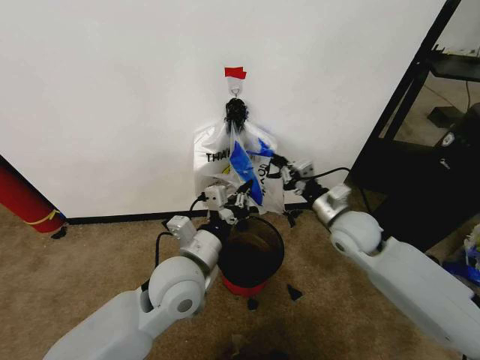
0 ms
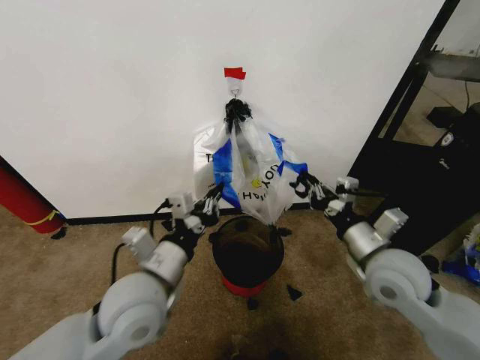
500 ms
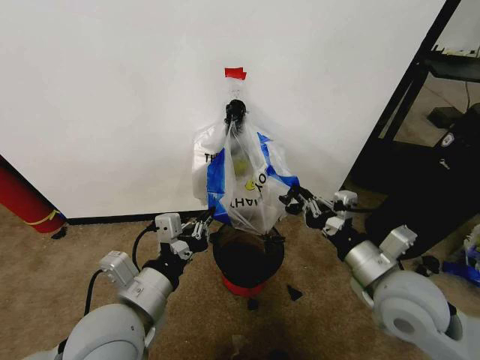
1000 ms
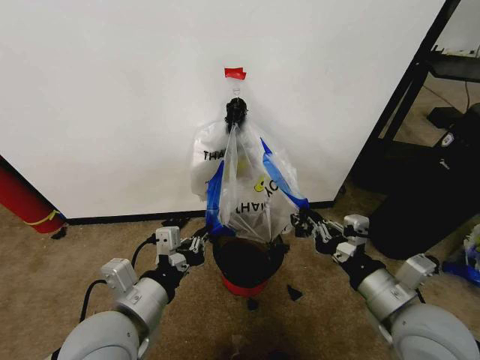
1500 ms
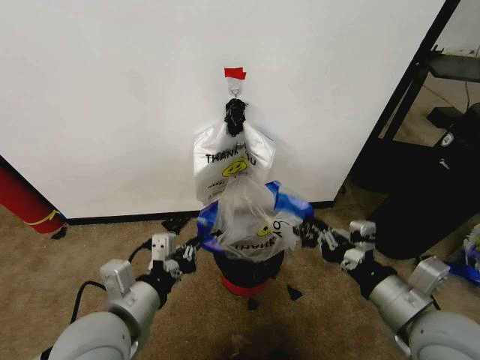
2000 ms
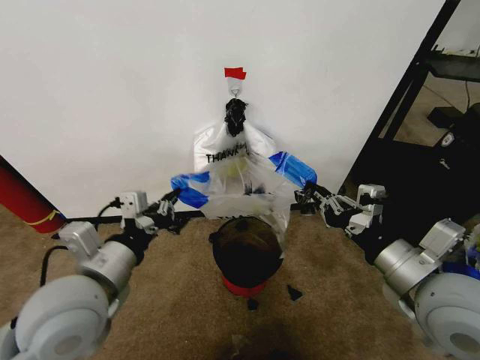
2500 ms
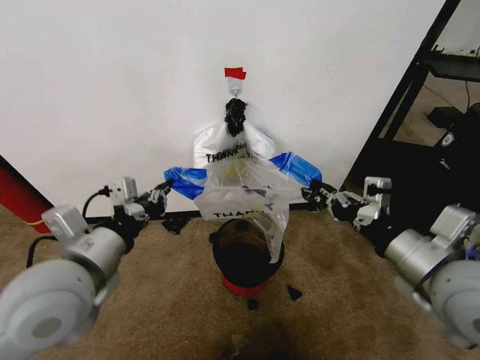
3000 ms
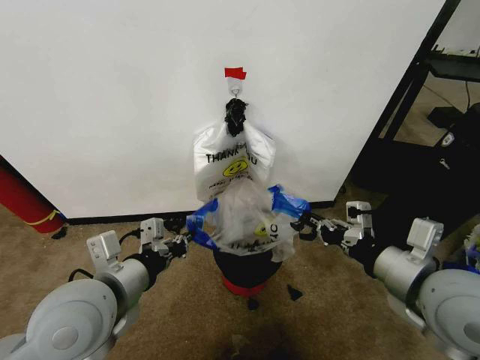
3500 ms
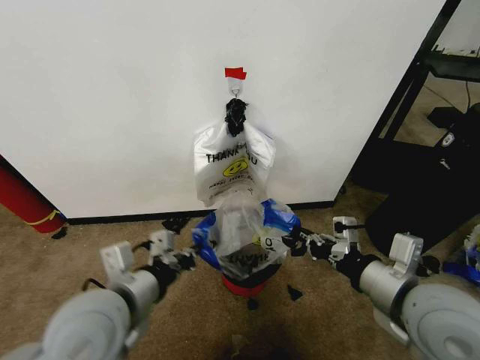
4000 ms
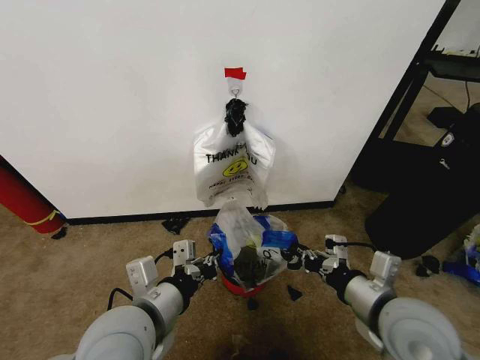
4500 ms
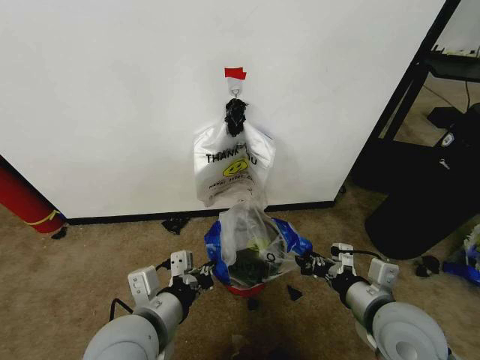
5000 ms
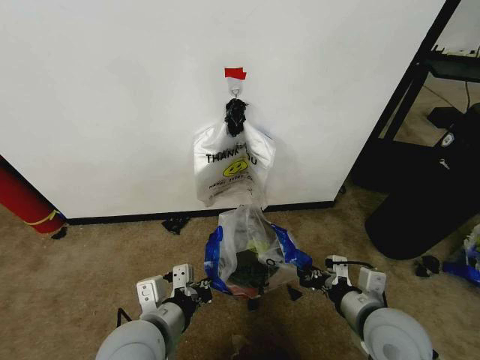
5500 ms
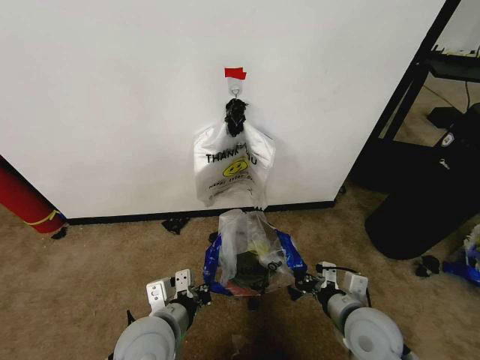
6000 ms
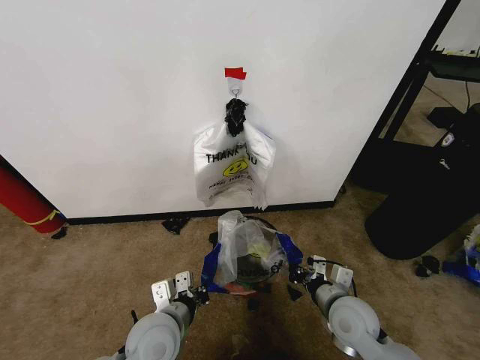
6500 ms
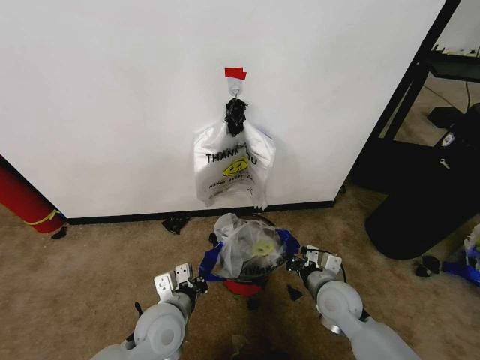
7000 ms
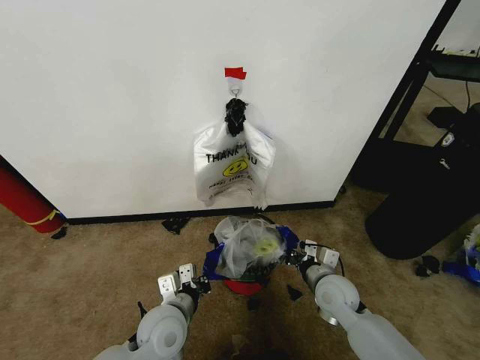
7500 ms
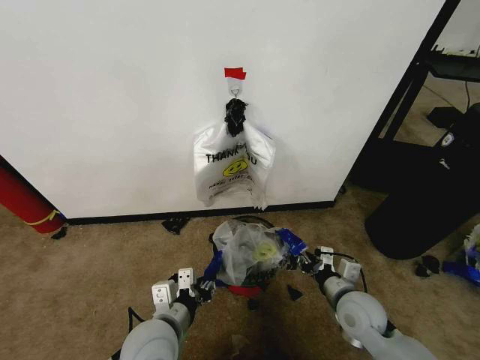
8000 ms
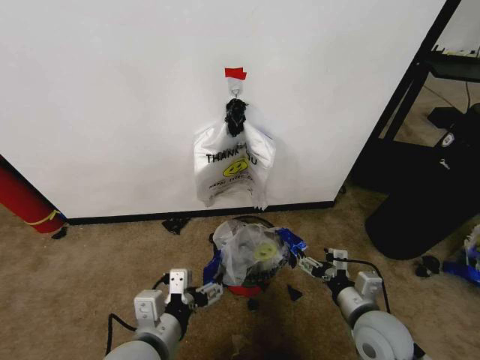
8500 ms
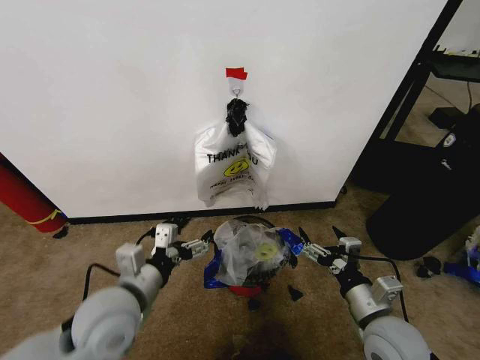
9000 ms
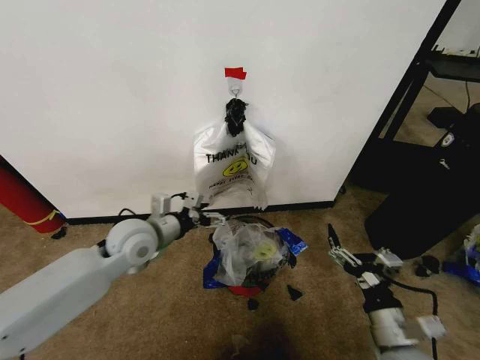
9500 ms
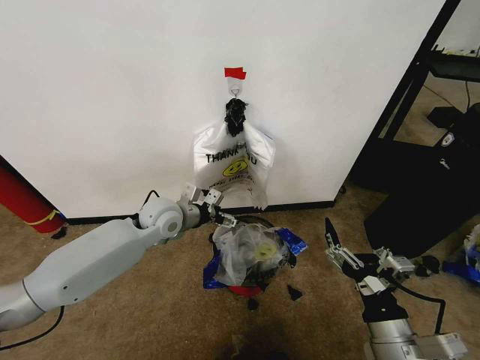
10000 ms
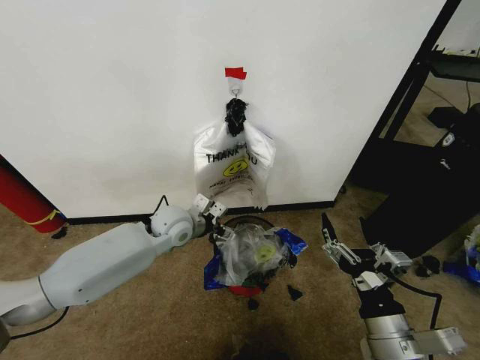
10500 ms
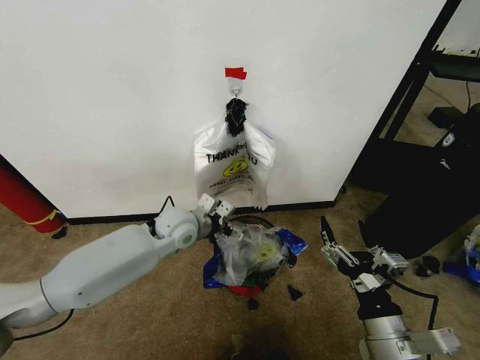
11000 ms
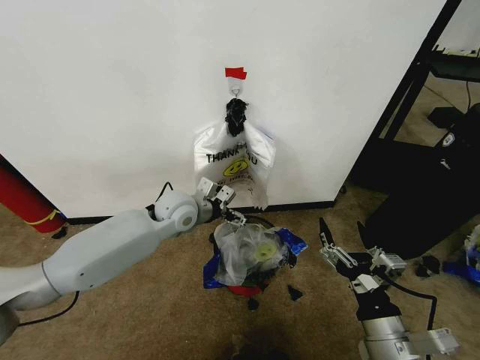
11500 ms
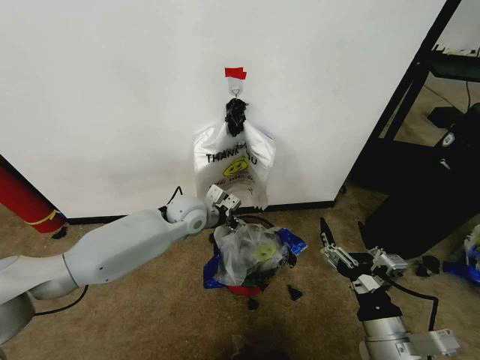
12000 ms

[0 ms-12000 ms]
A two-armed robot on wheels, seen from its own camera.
Task of the whole recording: Pick up the garbage bag from the wall and place it over the trash bin.
0 ms to 2000 ms: The right gripper shifts some 25 cm backward. Meanwhile the left gripper travels backward and to the left by some 15 cm.
4000 ms to 6000 ms: The right gripper moves downward, approximately 15 cm. The left gripper travels downward and to the right by some 15 cm.
6000 ms to 8000 ms: The right gripper opens, while the left gripper opens.
8000 ms to 10000 ms: The left gripper heads forward, covering about 25 cm, and opens its fingers. The right gripper goes approximately 15 cm backward and upward, and opens.
10000 ms to 12000 ms: The left gripper goes about 5 cm to the right.

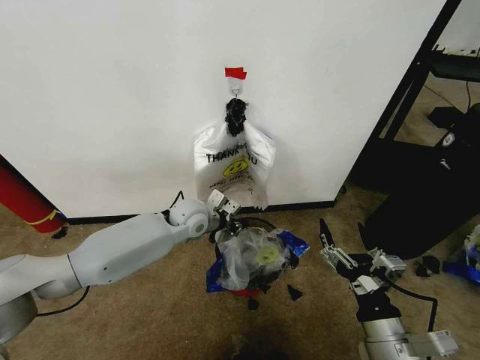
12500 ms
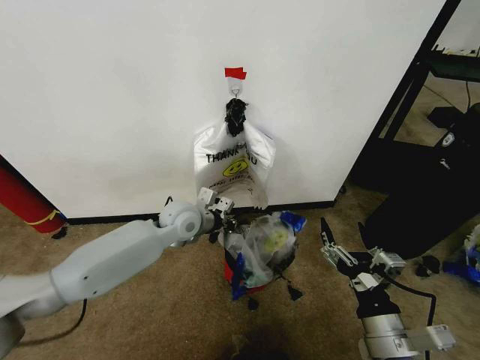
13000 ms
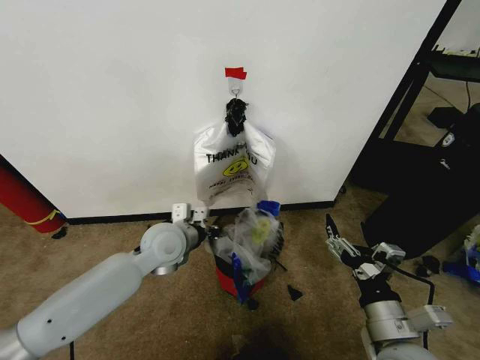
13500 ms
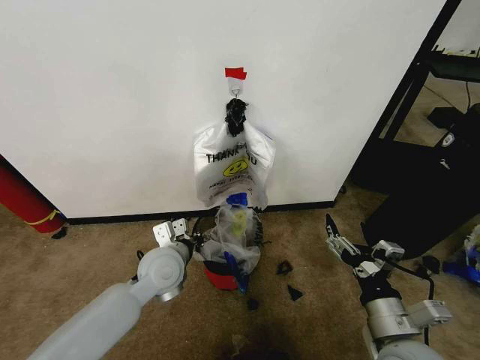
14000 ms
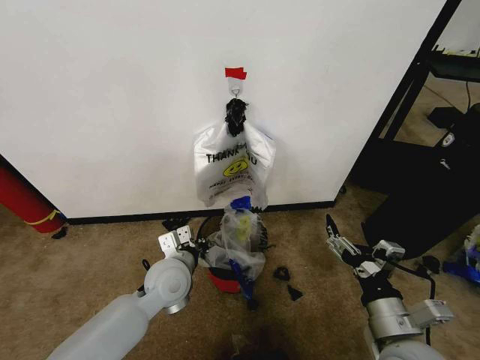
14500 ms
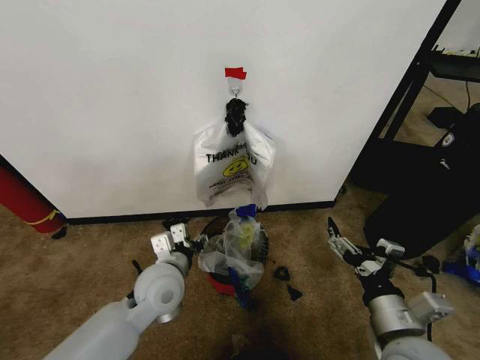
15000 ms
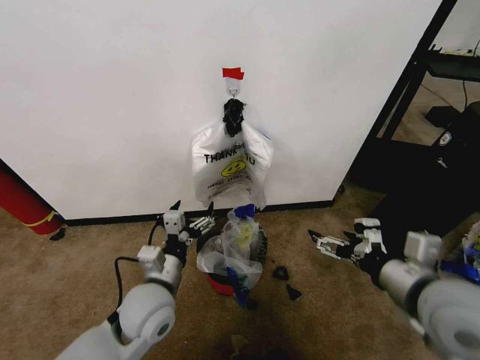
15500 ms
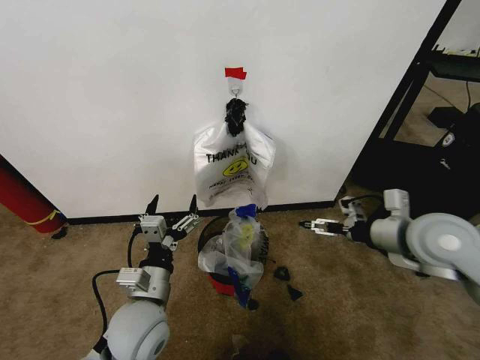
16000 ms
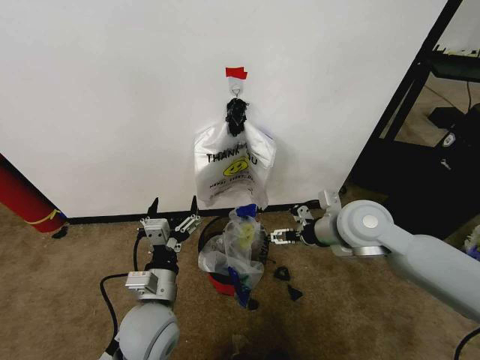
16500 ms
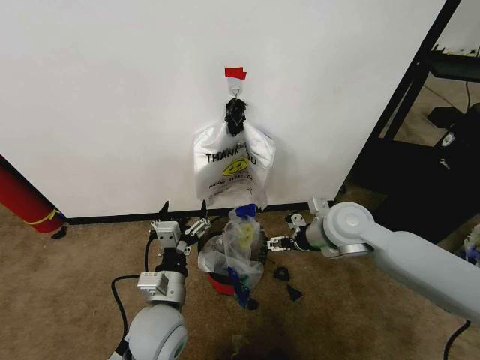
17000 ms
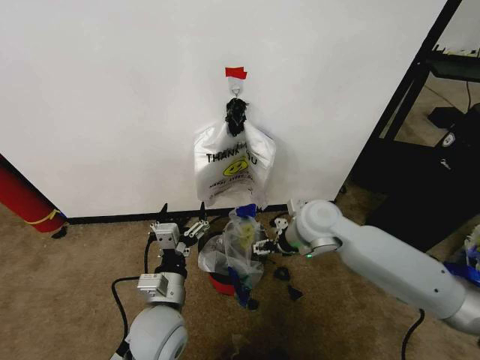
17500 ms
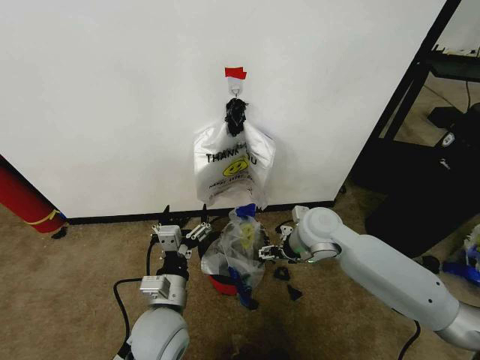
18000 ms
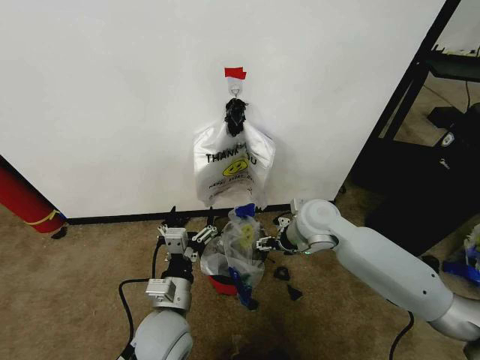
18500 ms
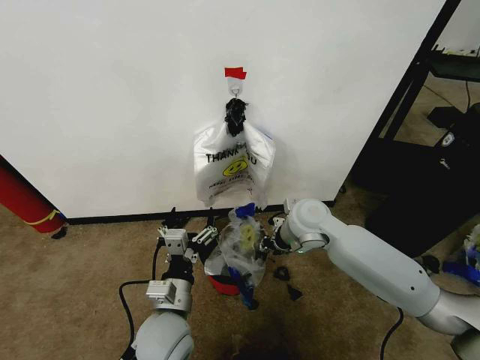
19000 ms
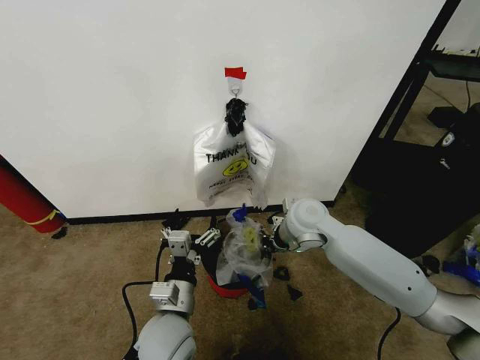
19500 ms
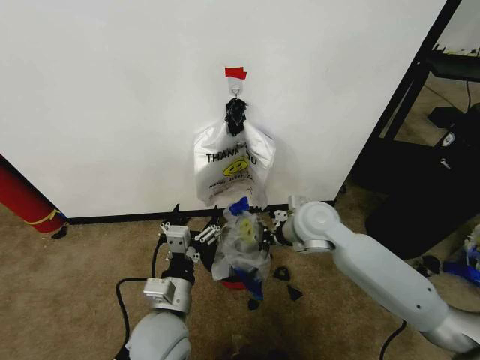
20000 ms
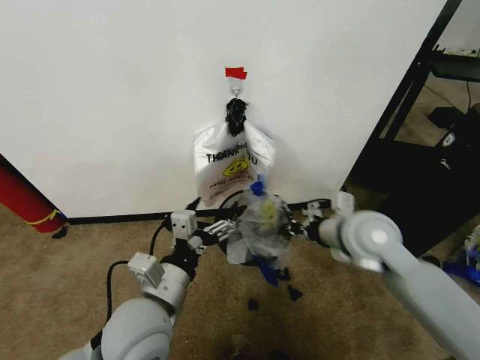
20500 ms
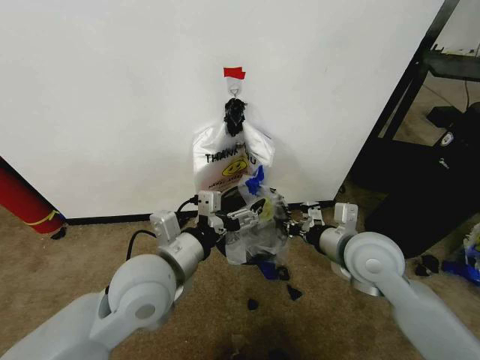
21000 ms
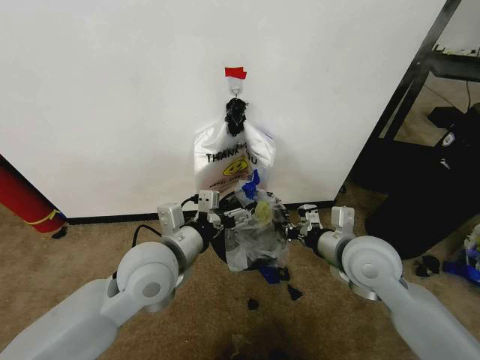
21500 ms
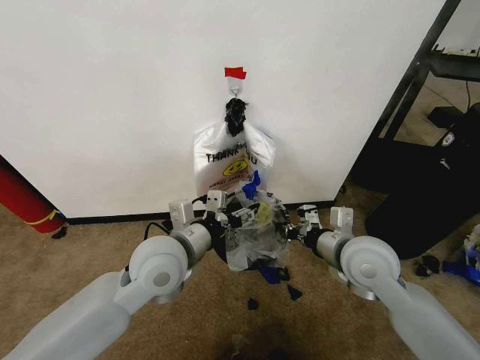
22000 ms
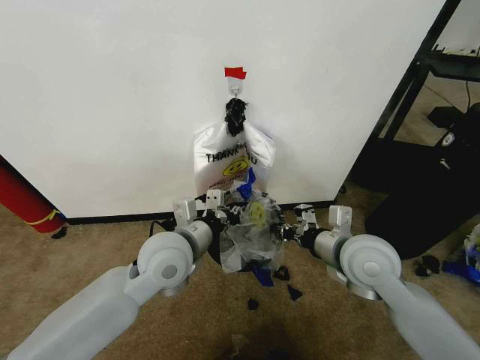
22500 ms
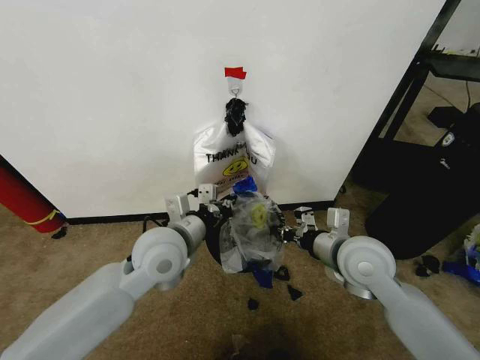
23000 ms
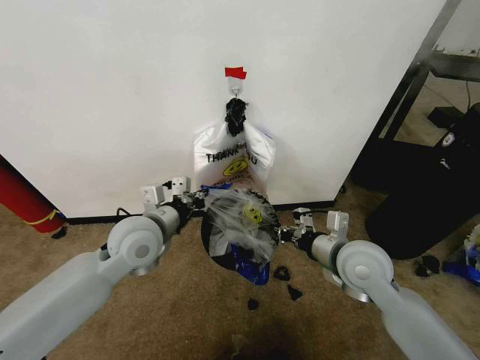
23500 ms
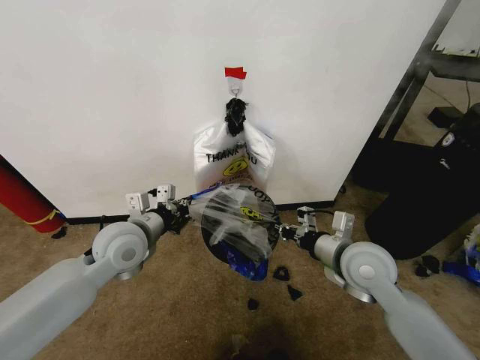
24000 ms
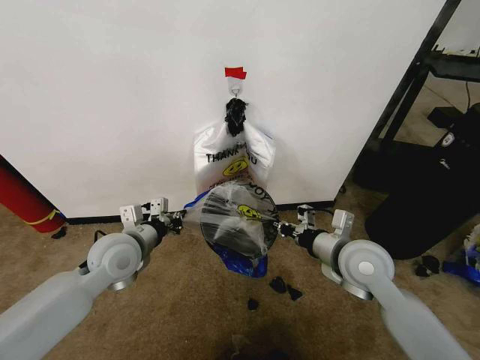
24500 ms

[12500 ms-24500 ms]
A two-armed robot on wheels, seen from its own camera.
Task of the whole recording: Pick up the garbage bag from the wall and place it over the trash bin.
12500 ms to 14500 ms: The left gripper goes roughly 15 cm backward.
14500 ms to 16500 ms: The left gripper moves backward, roughly 10 cm, and opens, while the right gripper goes some 25 cm forward and upward.
16500 ms to 18500 ms: The right gripper goes some 10 cm to the left, downward and forward.
18500 ms to 20500 ms: The right gripper goes some 10 cm backward and to the right, and closes its fingers, while the left gripper moves upward, approximately 10 cm.
20500 ms to 22500 ms: The left gripper goes about 10 cm forward, and closes.
22500 ms to 24500 ms: The left gripper goes approximately 10 cm to the left.

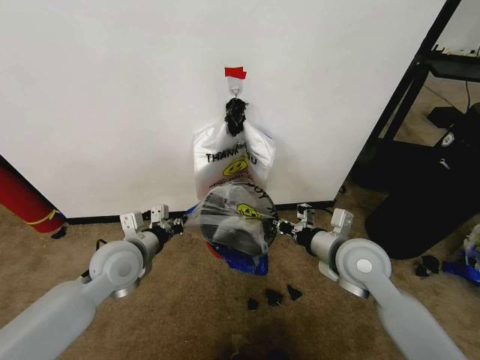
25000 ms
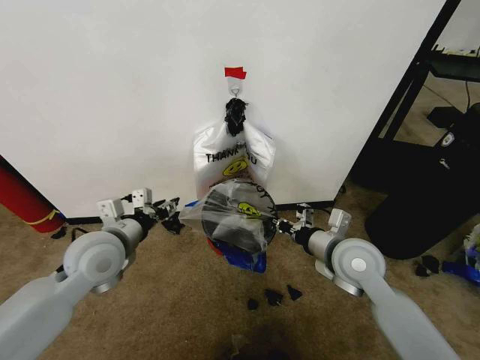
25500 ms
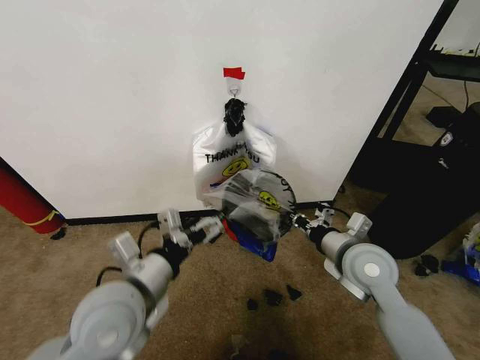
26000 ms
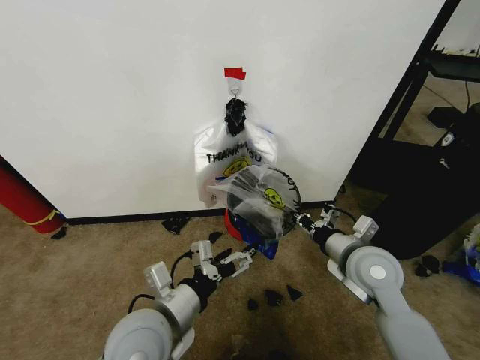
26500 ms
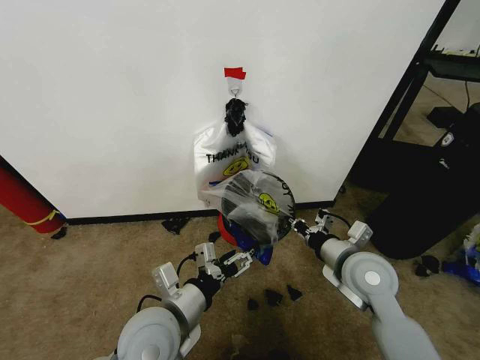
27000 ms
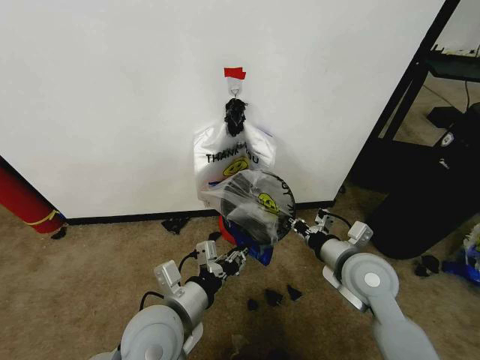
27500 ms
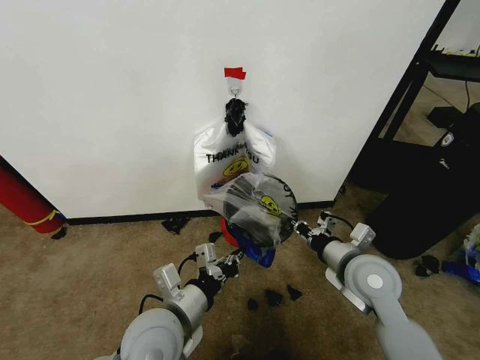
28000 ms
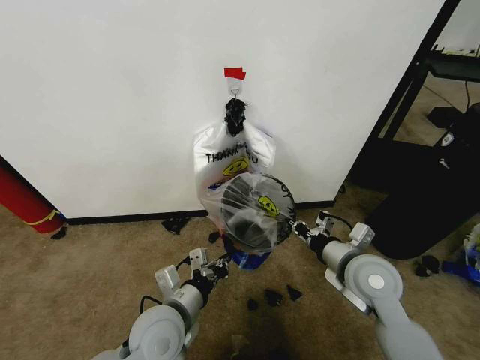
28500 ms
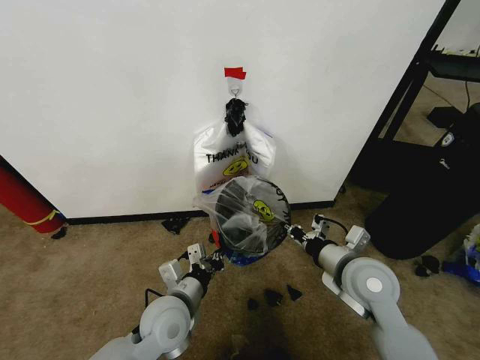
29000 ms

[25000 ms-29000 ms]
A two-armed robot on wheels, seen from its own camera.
Task of the whole recording: Pick up the garbage bag from the wall and place it over the trash bin.
25000 ms to 27000 ms: The left gripper heads backward and to the right, covering about 15 cm, and opens its fingers.
27000 ms to 29000 ms: The left gripper moves downward, approximately 5 cm, and closes.
